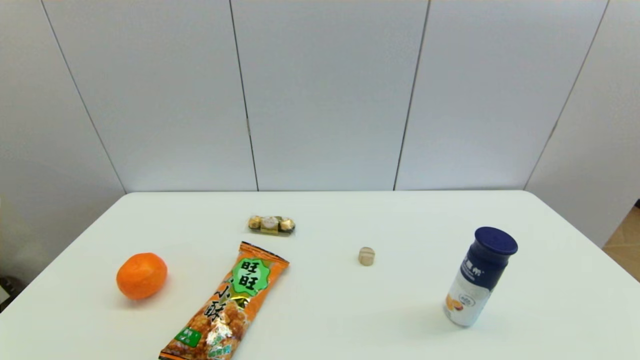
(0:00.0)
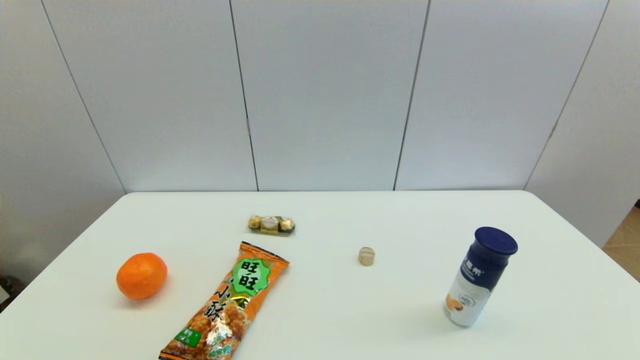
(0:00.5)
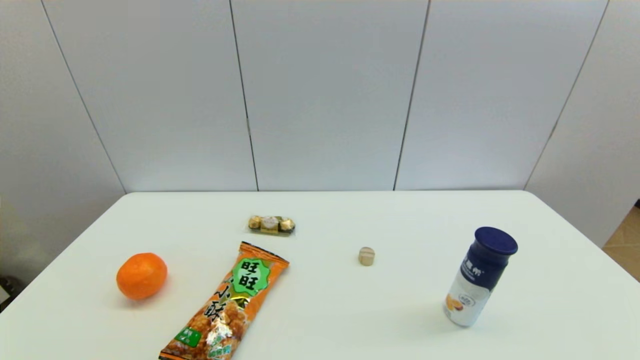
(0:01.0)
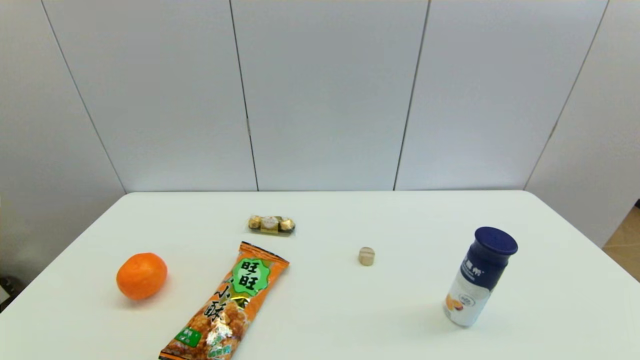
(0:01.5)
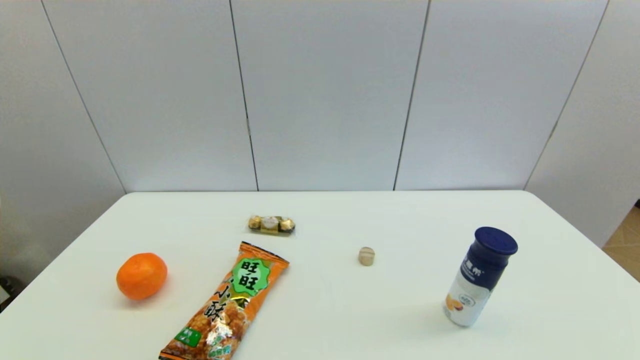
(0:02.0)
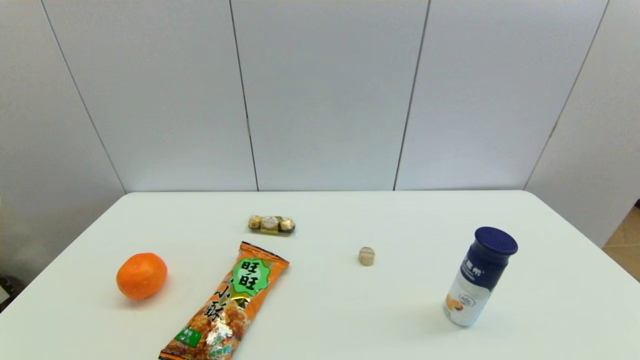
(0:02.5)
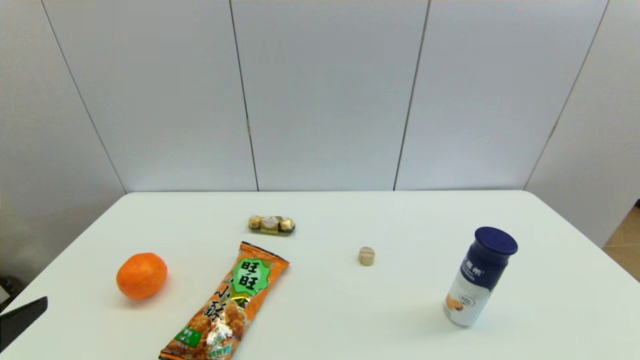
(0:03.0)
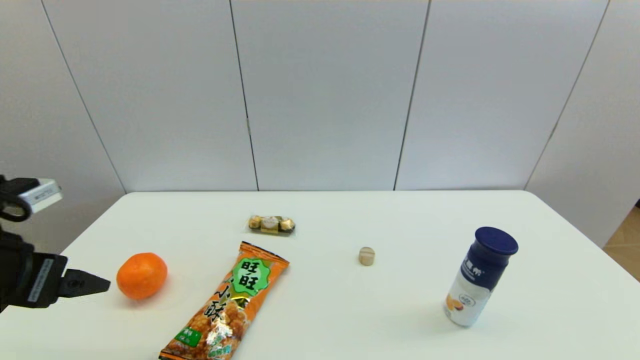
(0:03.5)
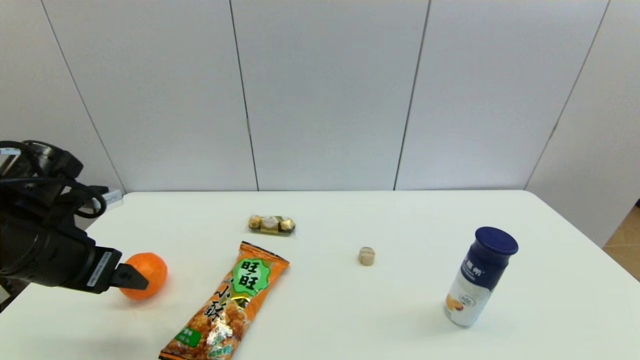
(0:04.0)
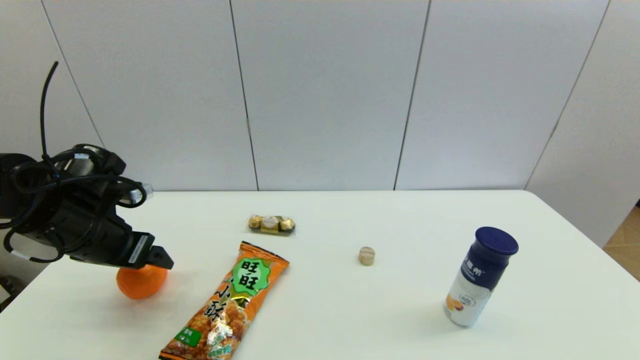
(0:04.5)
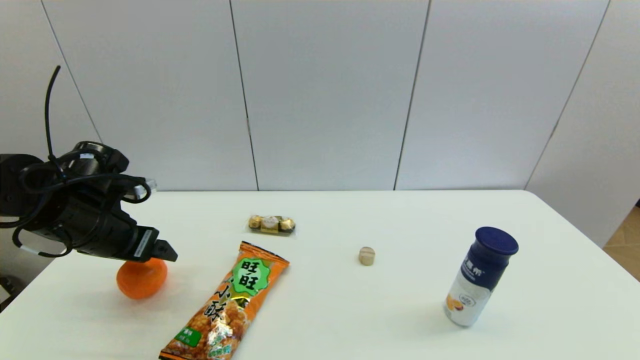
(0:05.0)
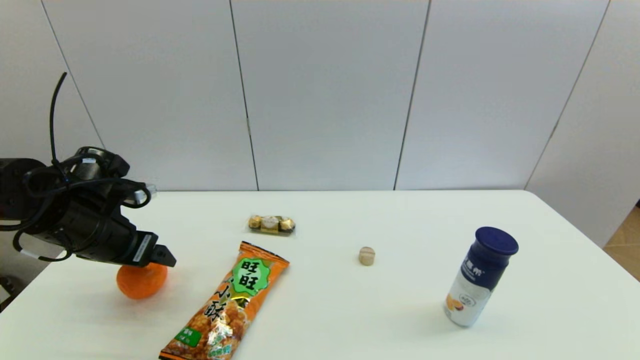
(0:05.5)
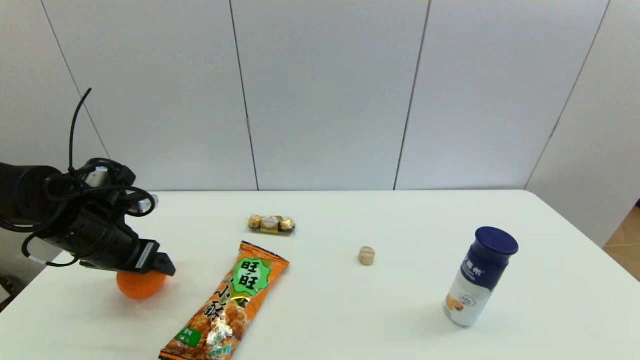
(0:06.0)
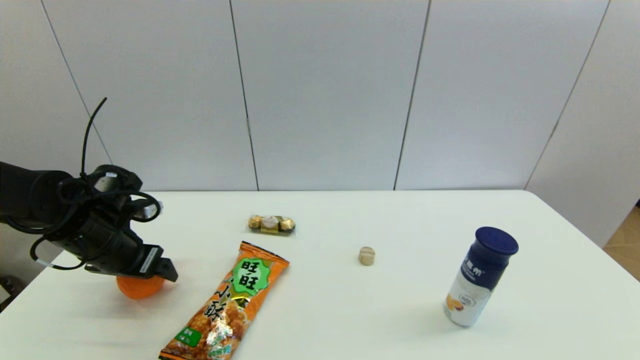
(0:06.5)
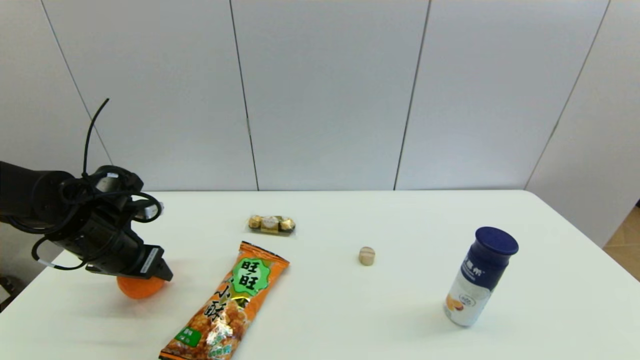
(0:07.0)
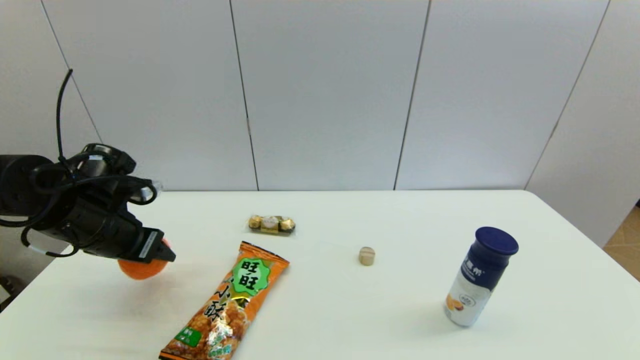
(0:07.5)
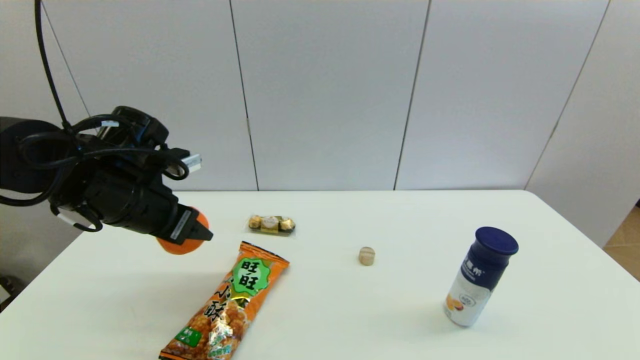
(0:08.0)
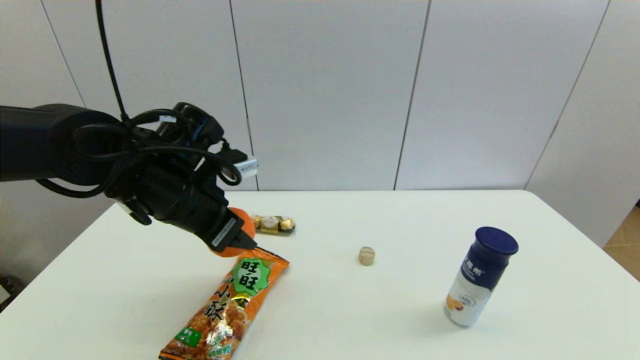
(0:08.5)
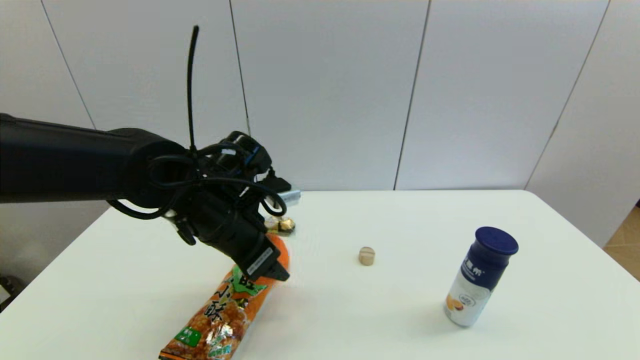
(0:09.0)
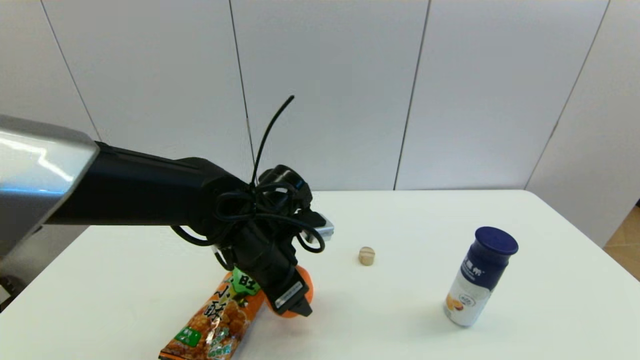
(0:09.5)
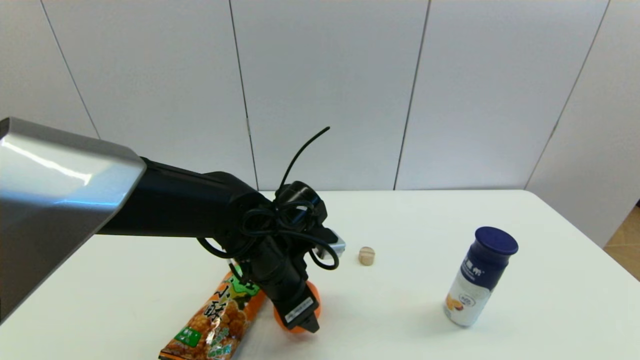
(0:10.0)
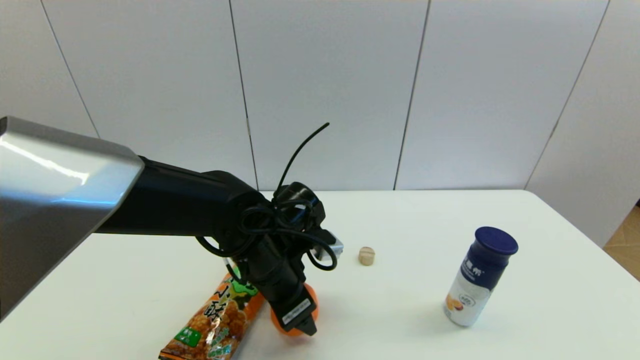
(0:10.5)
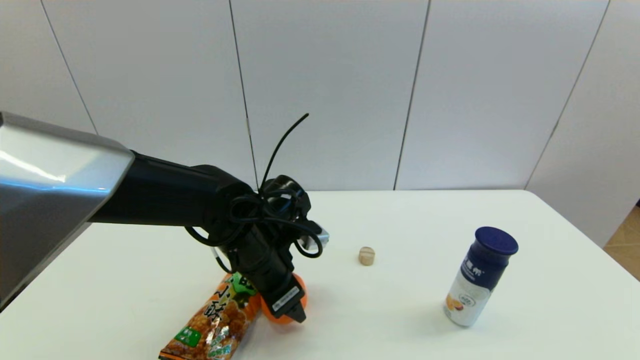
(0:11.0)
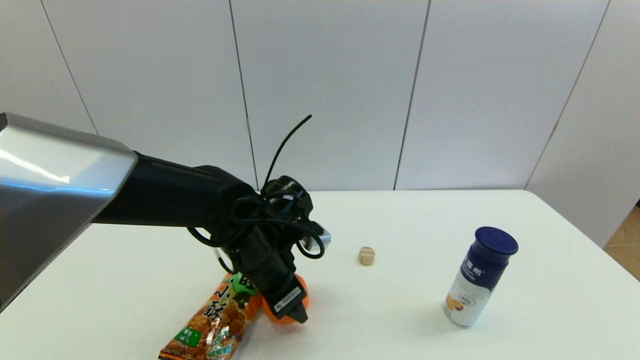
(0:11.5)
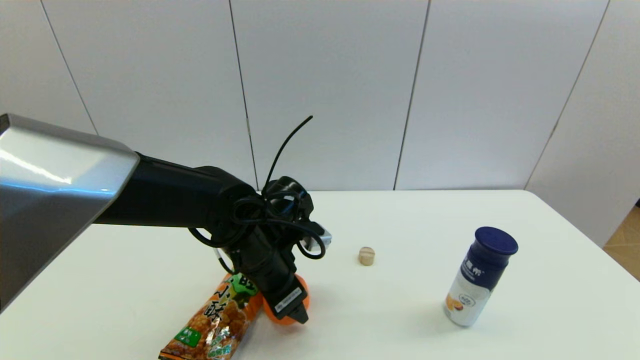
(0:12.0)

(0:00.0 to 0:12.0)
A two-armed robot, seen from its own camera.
Step, 0:03.0 - 0:07.0: Grasp the orange with left gripper.
0:00.0 - 0:02.0: Both grippers stay put.
0:02.0 - 0:04.0: The left gripper travels forward and upward by approximately 25 cm.
0:04.0 - 0:06.0: The left gripper goes roughly 10 cm forward and downward.
0:06.0 - 0:08.0: The left gripper heads to the right and upward, covering some 10 cm, and closes up.
0:08.0 - 0:10.0: The left gripper moves to the right and downward, approximately 20 cm.
0:10.0 - 0:12.0: The grippers move only a little.

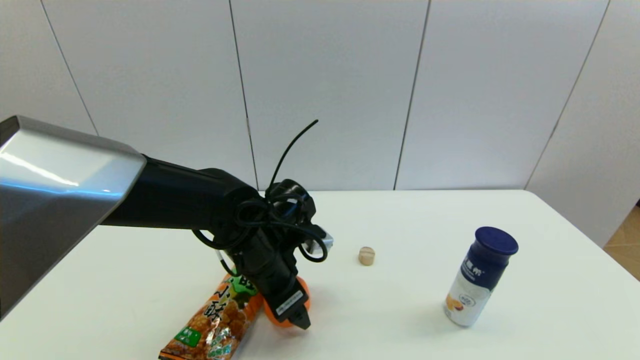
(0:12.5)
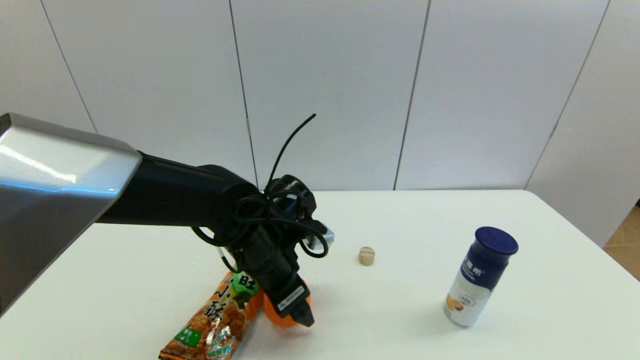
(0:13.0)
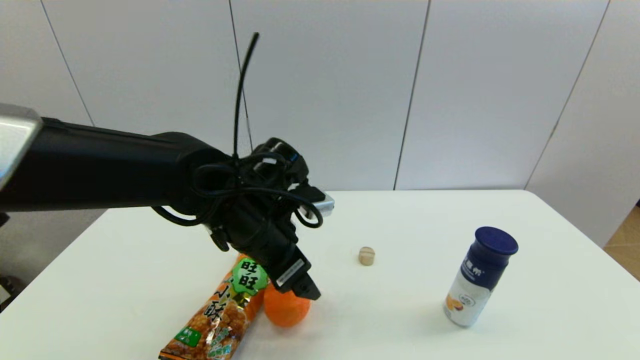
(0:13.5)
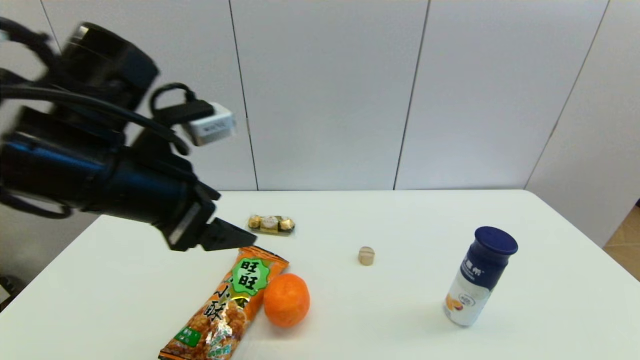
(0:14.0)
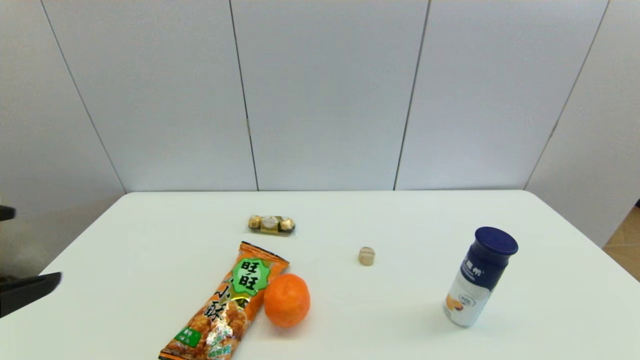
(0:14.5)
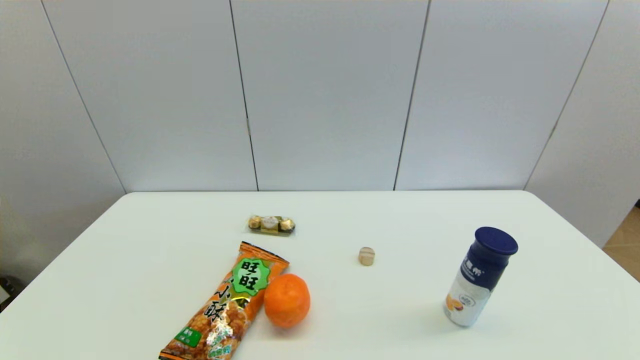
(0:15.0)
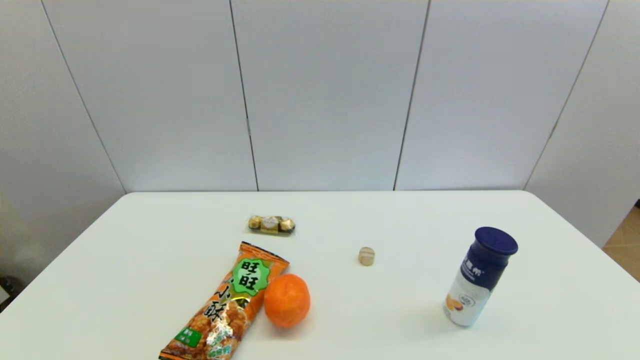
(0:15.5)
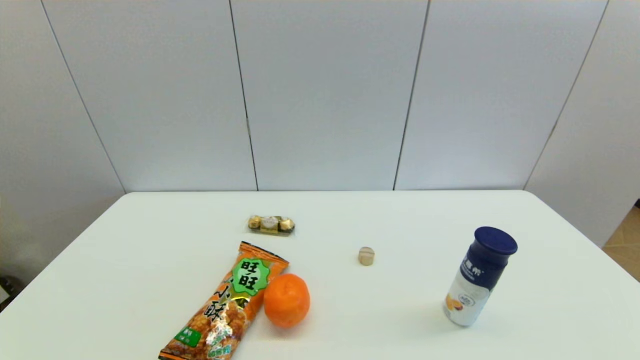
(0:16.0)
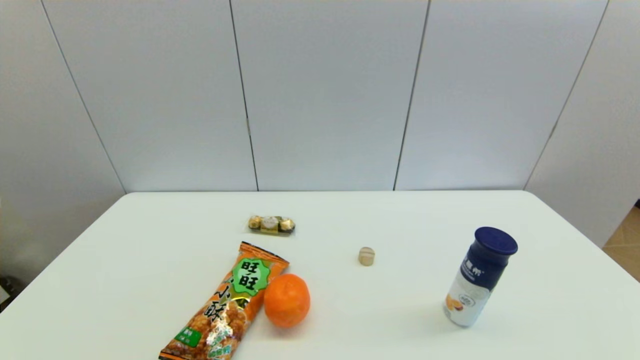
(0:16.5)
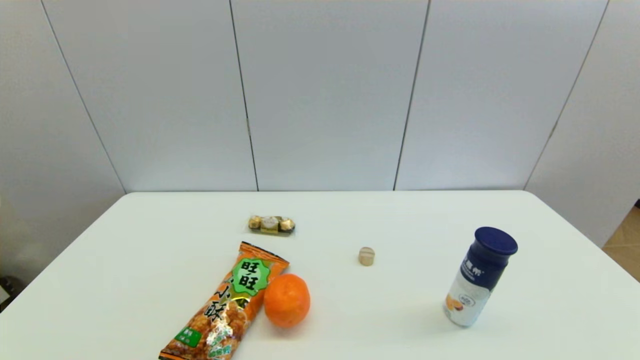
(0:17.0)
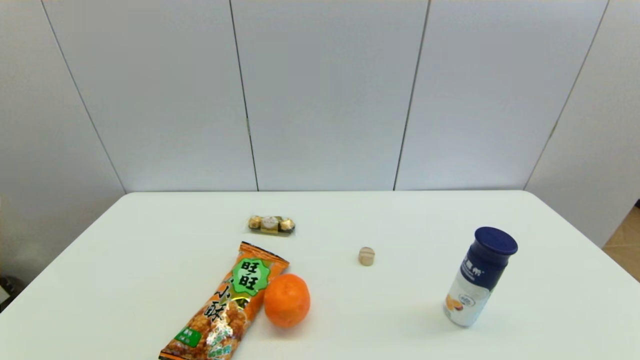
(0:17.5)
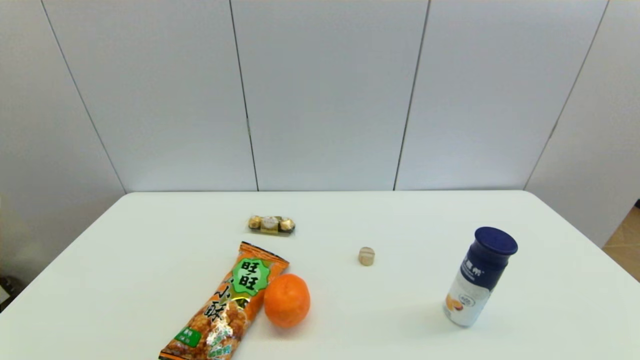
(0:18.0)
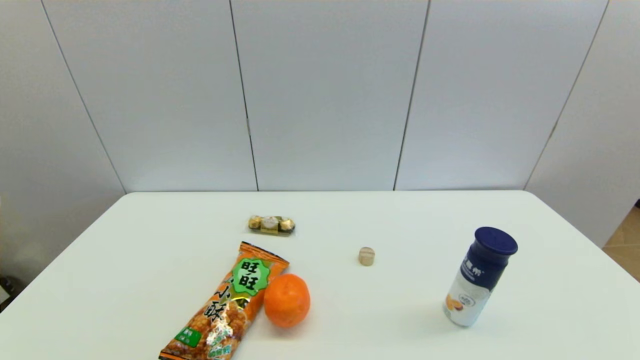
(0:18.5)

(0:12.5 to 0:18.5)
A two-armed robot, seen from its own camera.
0:12.5 - 0:14.5: The left gripper is displaced backward, to the left and upward by some 35 cm, and opens its fingers.
0:14.5 - 0:16.5: The left gripper shifts approximately 20 cm downward.
